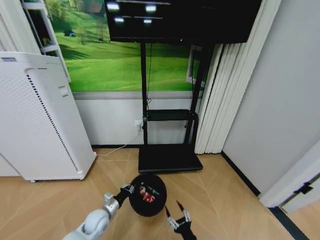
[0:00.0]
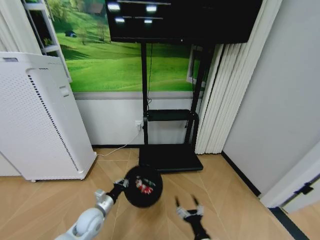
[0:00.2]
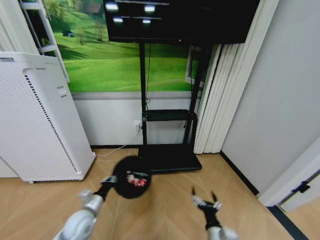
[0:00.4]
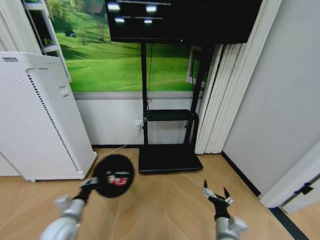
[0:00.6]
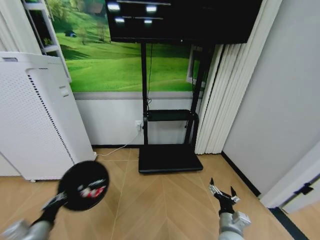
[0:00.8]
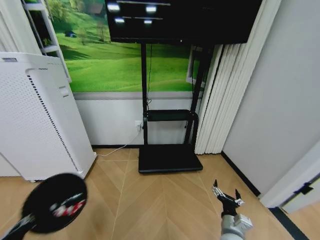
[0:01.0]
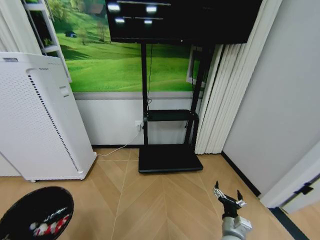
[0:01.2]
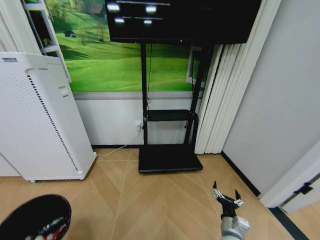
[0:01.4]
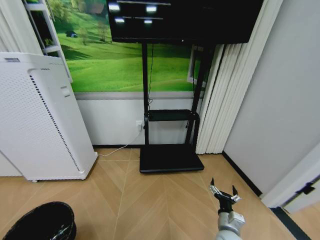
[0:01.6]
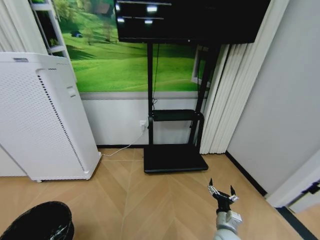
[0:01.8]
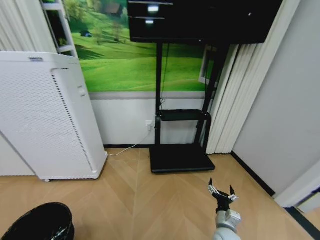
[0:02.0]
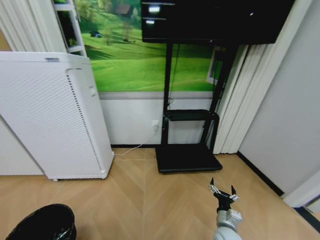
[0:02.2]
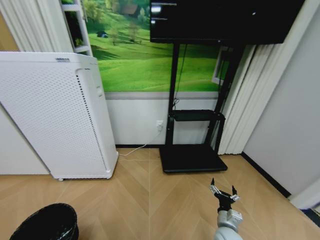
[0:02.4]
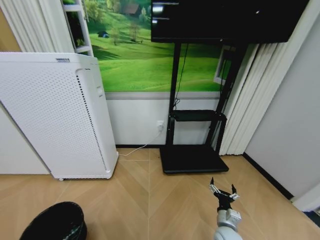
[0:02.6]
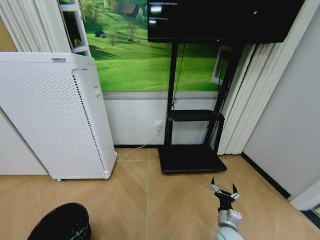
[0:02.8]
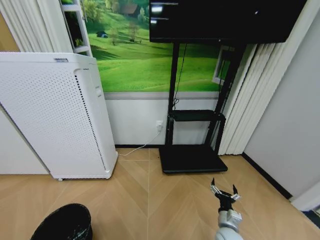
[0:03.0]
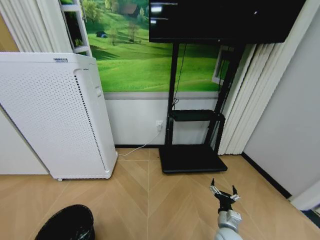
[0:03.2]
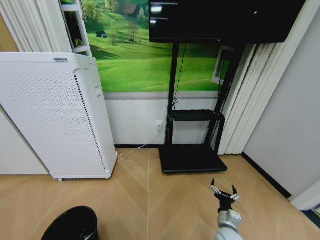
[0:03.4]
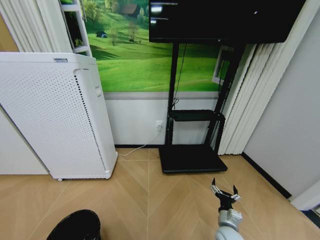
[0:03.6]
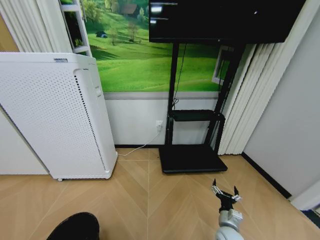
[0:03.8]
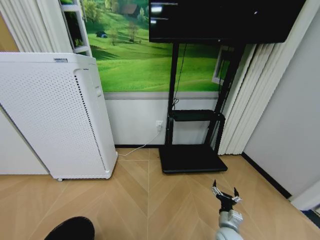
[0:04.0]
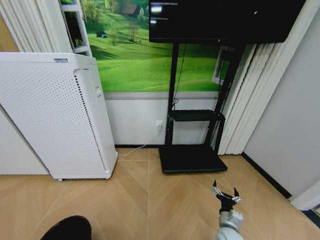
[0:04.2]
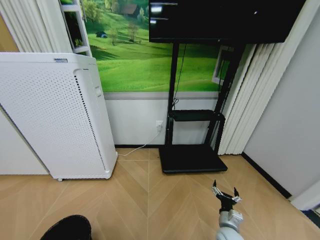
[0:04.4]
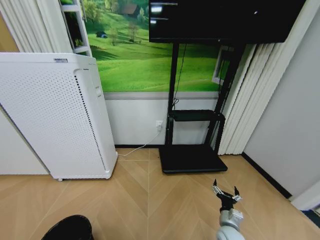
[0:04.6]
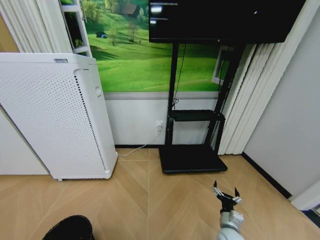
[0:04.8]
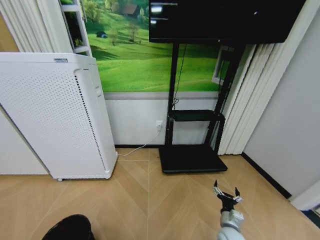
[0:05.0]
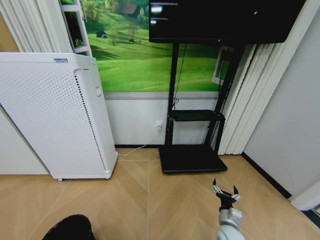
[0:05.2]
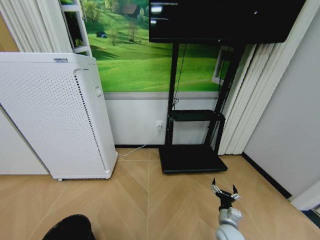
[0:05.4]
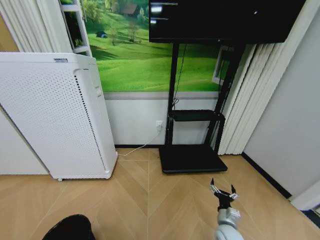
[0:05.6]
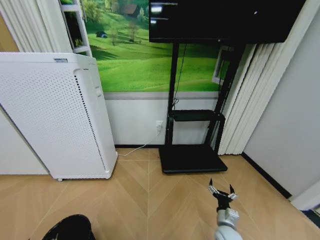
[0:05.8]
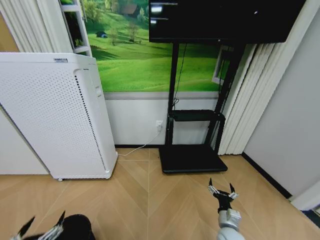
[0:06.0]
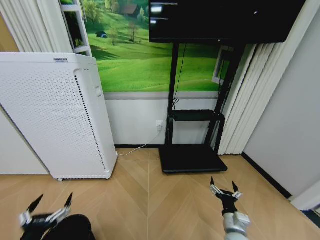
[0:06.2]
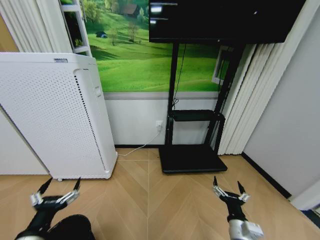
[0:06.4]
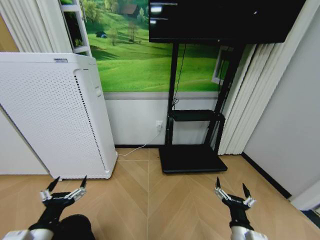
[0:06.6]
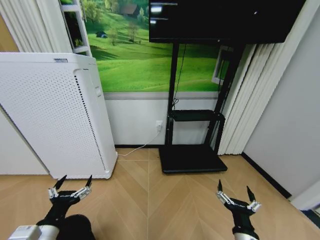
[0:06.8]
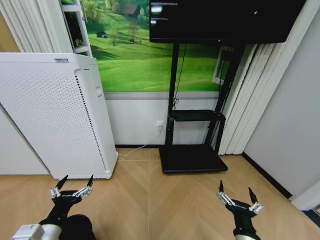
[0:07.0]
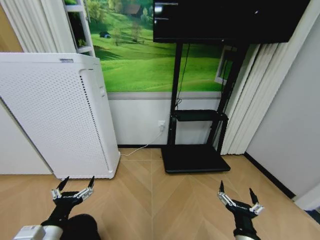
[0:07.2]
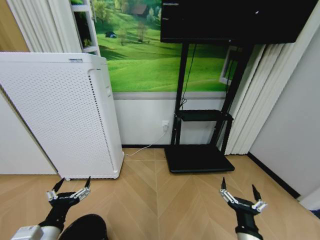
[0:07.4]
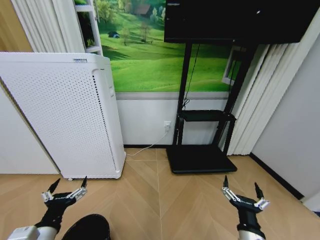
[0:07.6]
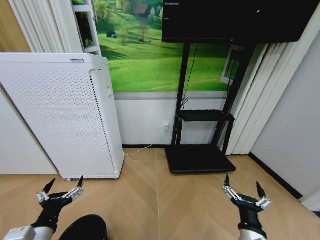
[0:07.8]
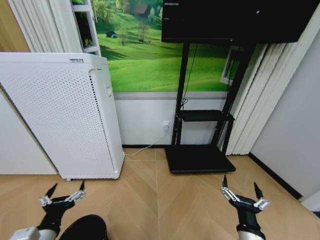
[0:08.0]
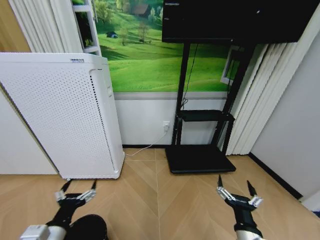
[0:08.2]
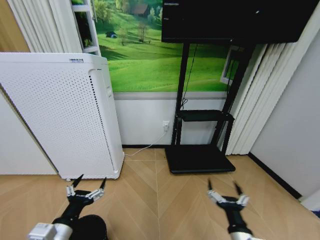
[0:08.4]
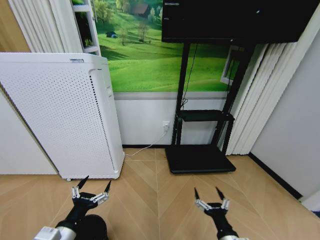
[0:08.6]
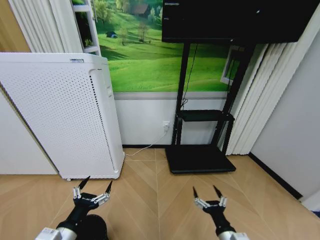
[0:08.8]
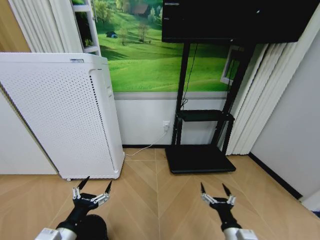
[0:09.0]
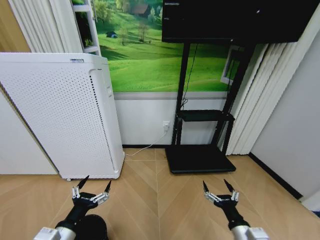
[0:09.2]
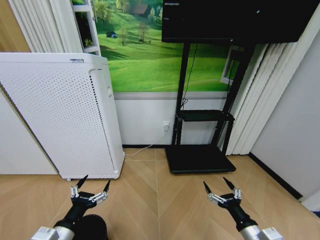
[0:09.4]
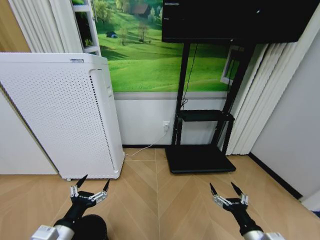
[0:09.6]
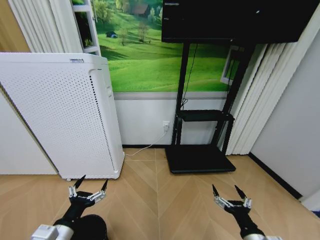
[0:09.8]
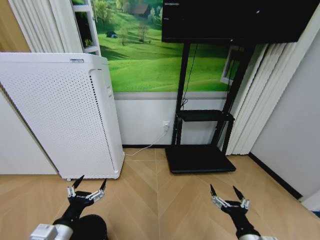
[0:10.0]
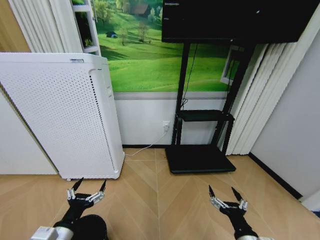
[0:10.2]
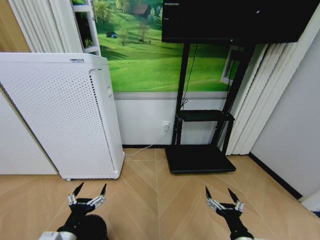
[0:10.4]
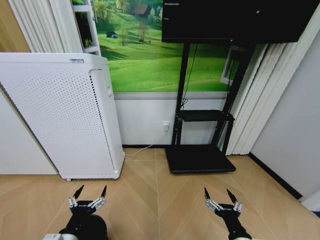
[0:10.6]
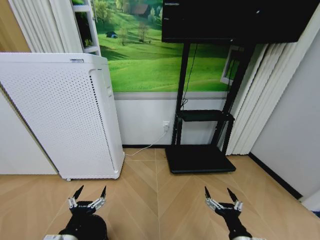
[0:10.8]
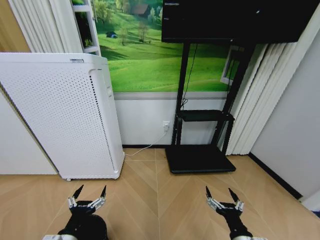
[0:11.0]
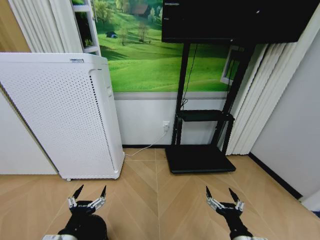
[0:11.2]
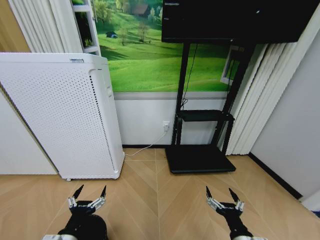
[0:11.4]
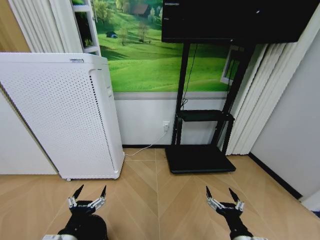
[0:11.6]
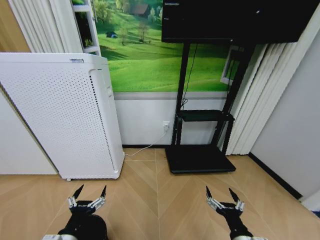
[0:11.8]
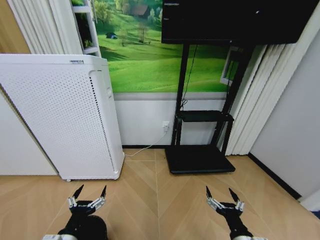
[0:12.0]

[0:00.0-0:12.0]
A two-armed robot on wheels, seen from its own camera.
Task of the whole recording: Pick up the trash bin and place the garbage on the floor into it.
0:00.0 to 0:01.6: The right gripper travels forward and to the right by some 15 cm; the left gripper travels backward and to the left by roughly 30 cm.
0:03.0 to 0:04.4: The grippers make only small movements.
0:04.4 to 0:06.0: The left gripper moves upward, approximately 10 cm, and opens up.
0:06.0 to 0:07.6: The left gripper travels forward, to the right and upward by roughly 10 cm. Meanwhile the right gripper travels upward and backward by about 15 cm.
0:10.4 to 0:12.0: Both grippers stay about where they are.

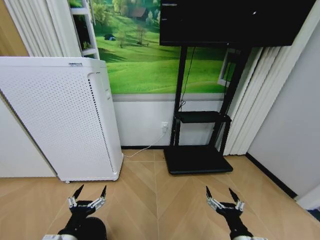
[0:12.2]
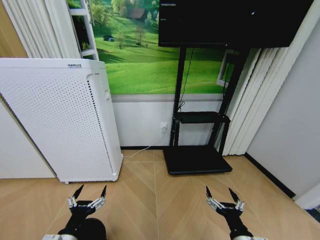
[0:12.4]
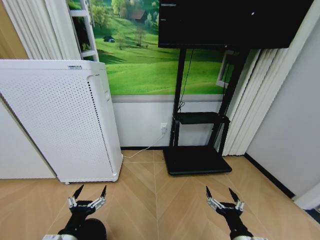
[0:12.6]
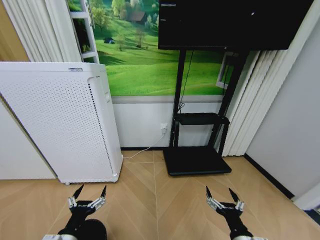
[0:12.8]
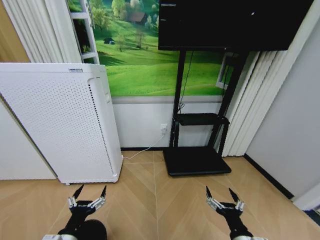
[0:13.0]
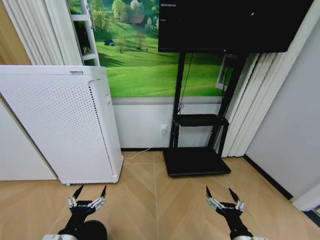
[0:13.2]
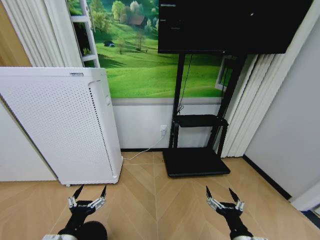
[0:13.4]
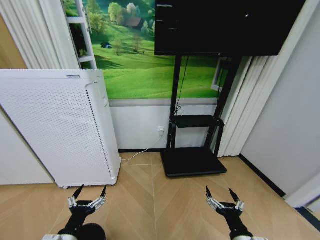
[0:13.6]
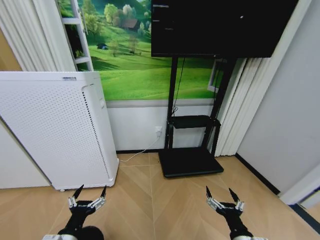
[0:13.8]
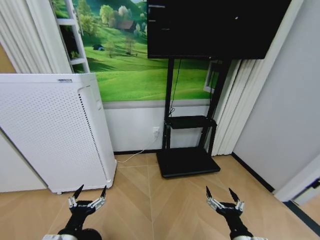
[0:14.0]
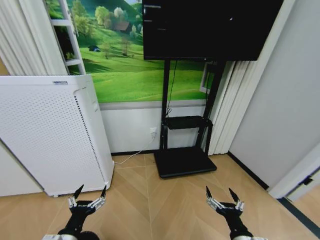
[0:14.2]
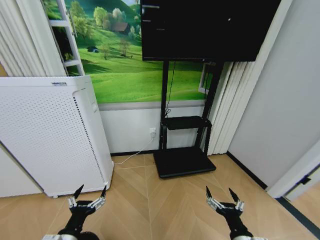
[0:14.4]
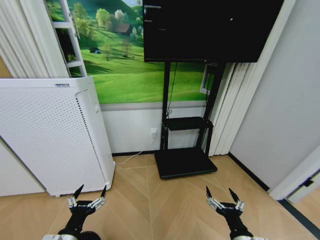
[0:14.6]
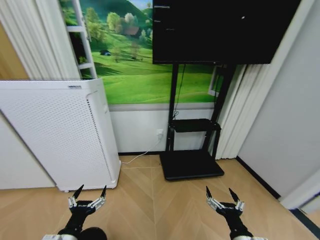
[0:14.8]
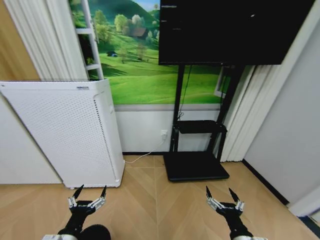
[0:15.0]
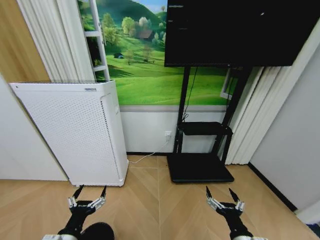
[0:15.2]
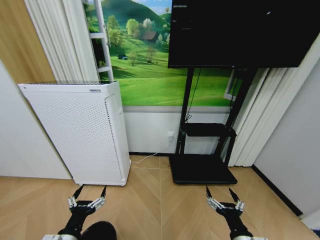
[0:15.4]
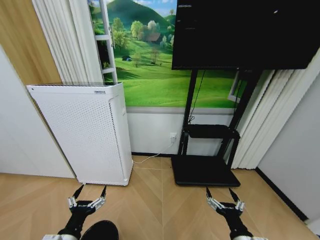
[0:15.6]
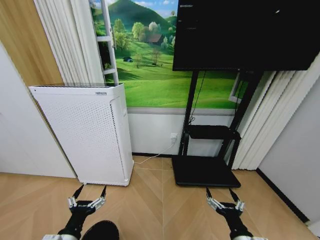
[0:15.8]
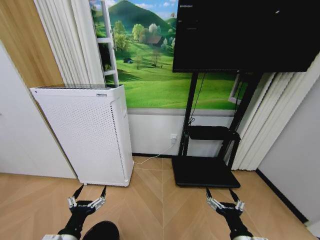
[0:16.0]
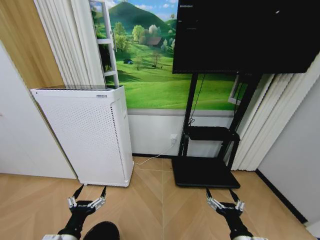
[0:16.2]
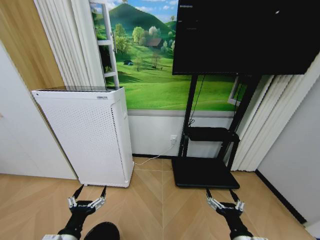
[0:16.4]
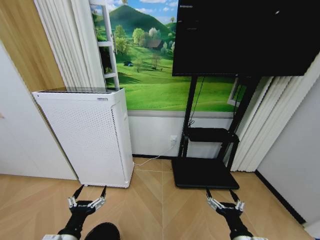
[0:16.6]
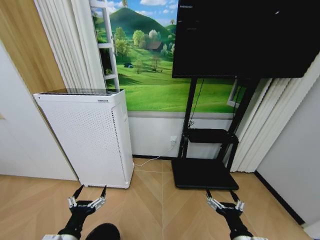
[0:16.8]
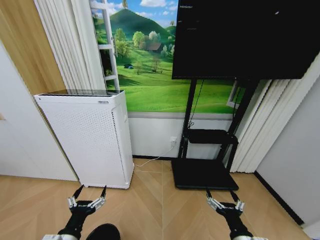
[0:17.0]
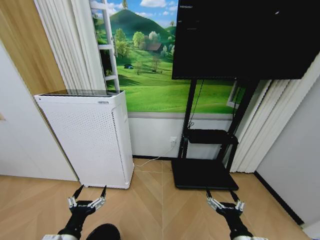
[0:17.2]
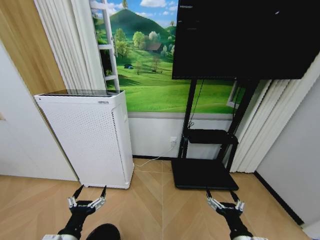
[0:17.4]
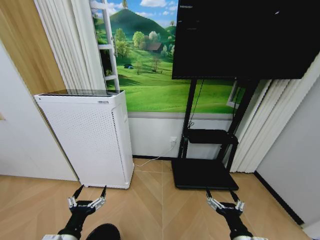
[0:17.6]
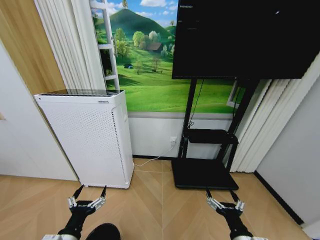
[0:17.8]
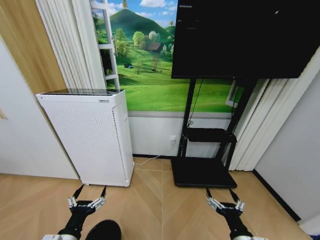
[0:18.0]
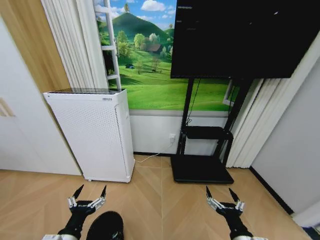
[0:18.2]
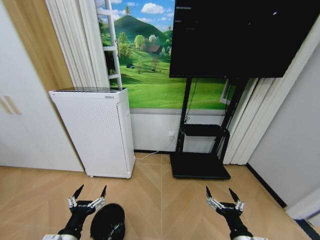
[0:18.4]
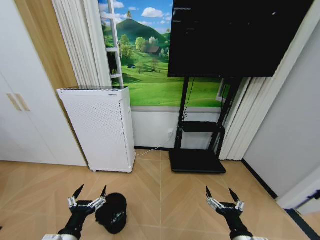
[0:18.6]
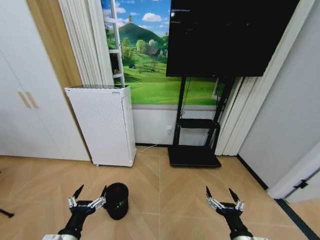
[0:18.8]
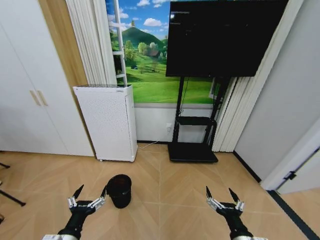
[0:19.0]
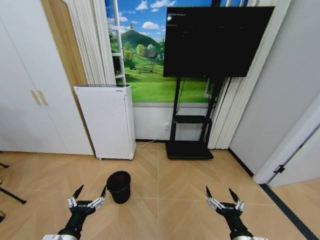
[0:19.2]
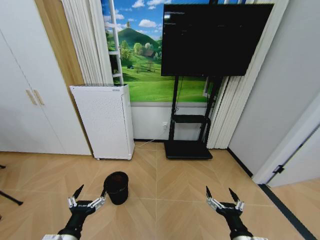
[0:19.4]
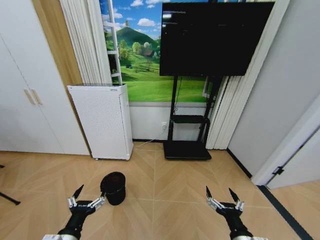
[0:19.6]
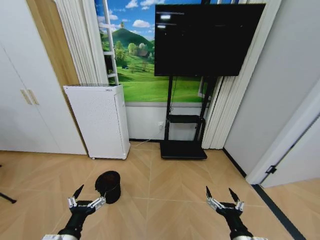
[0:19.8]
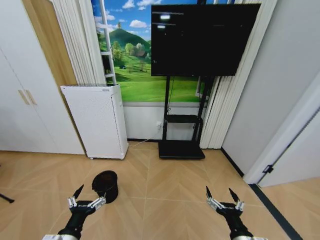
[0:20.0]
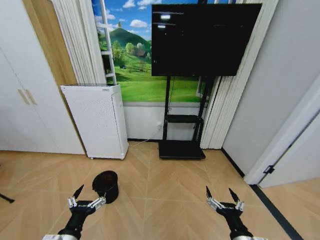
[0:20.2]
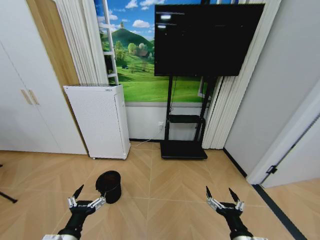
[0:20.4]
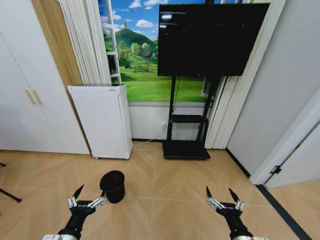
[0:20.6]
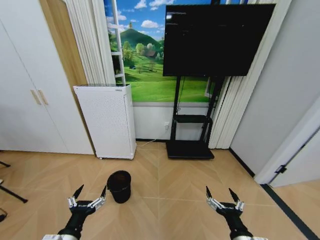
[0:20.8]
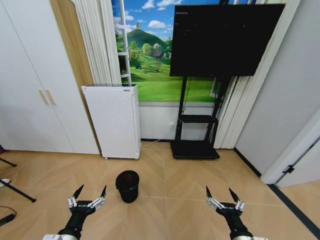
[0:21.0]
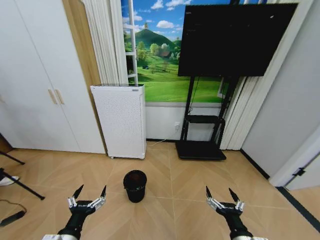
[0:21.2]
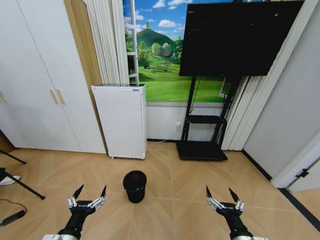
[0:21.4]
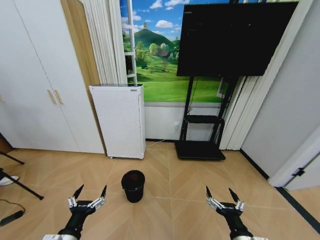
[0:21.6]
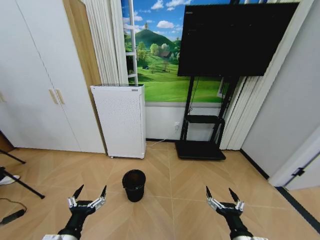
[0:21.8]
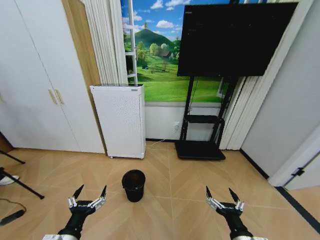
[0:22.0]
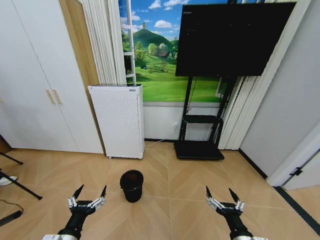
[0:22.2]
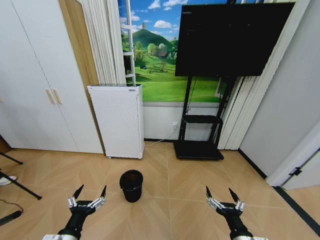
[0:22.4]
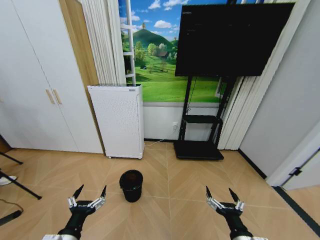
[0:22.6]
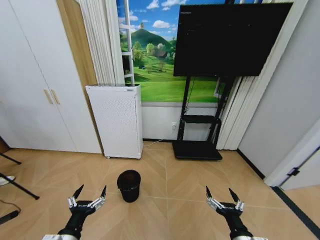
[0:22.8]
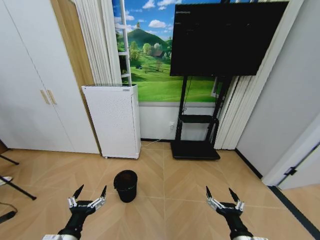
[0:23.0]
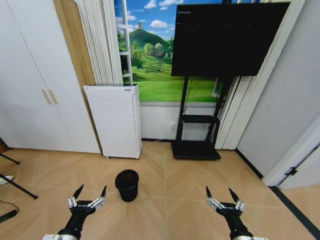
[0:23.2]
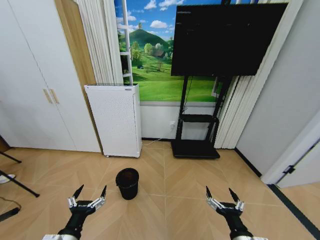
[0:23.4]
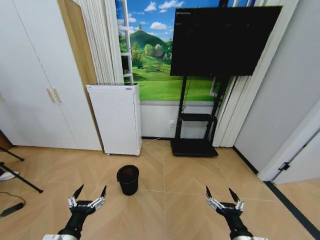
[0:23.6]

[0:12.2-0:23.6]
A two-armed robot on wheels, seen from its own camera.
Task of the whole recording: Pick up the trash bin and place the garbage on the floor into it.
0:16.4 to 0:17.8: Neither gripper changes place.
0:19.4 to 0:20.8: Both grippers stay put.
0:22.2 to 0:23.6: Neither gripper changes place.
